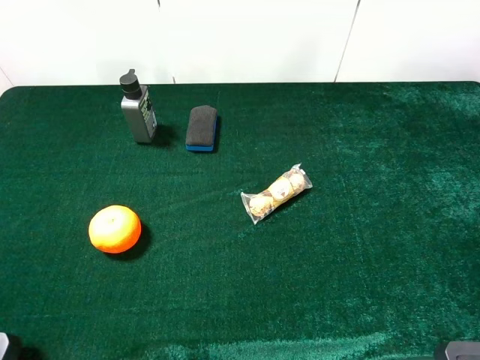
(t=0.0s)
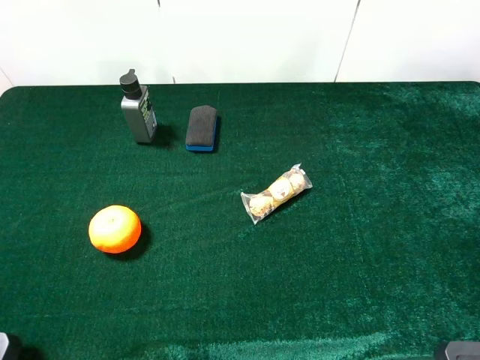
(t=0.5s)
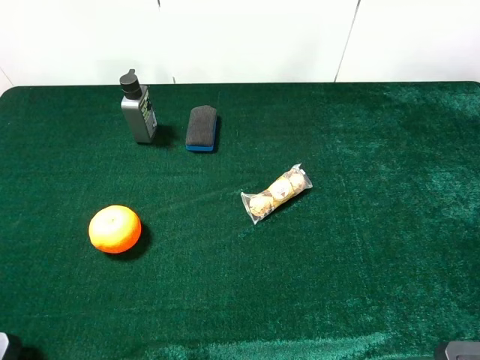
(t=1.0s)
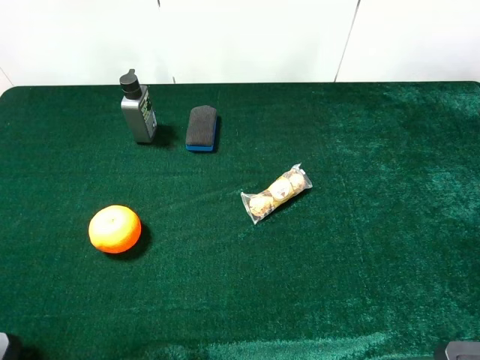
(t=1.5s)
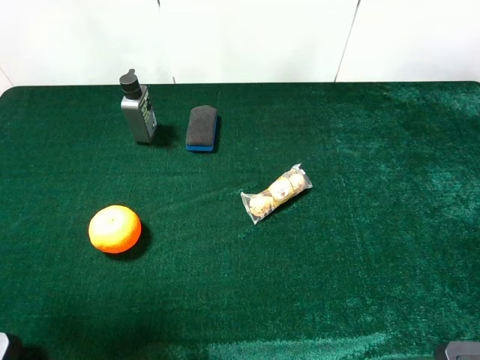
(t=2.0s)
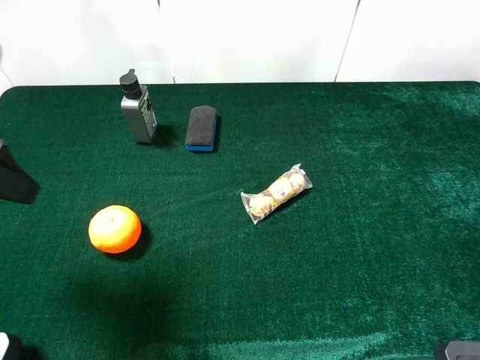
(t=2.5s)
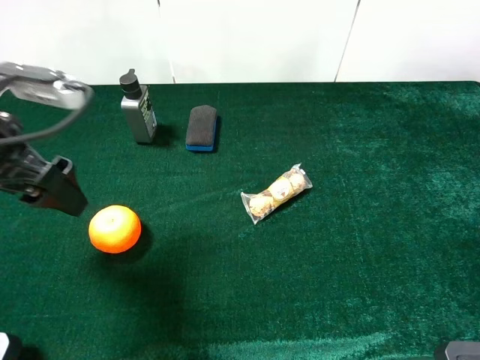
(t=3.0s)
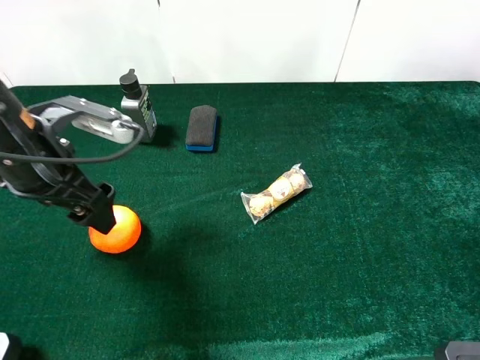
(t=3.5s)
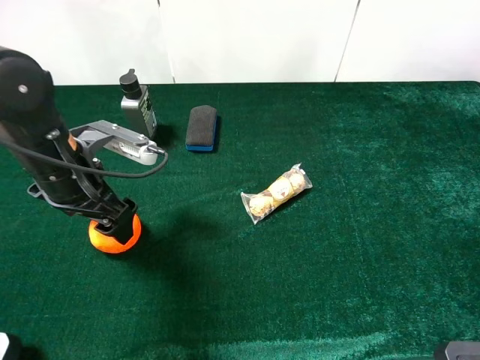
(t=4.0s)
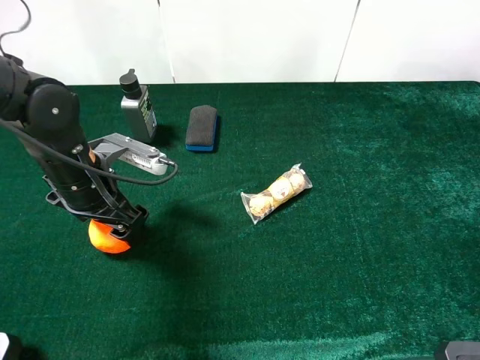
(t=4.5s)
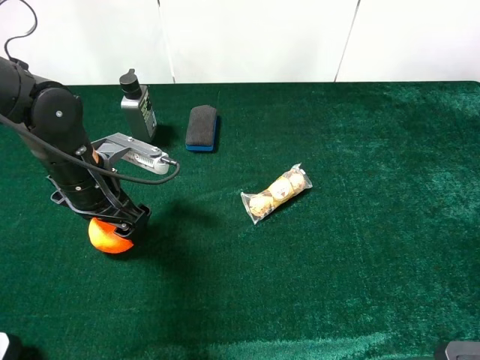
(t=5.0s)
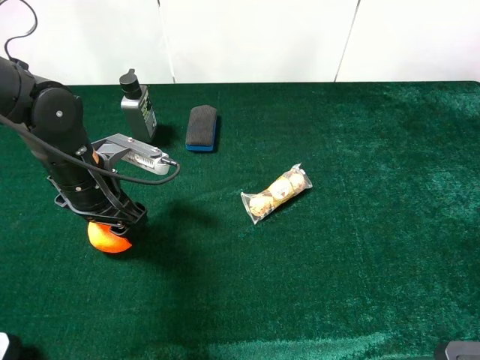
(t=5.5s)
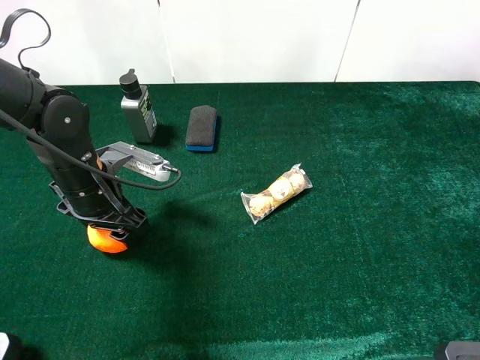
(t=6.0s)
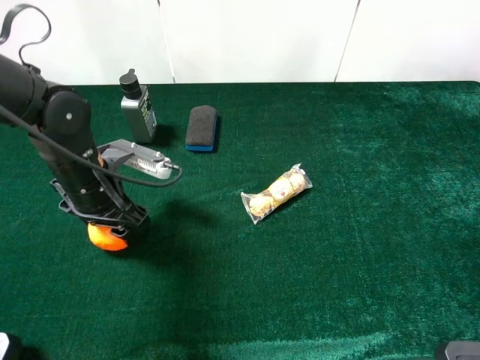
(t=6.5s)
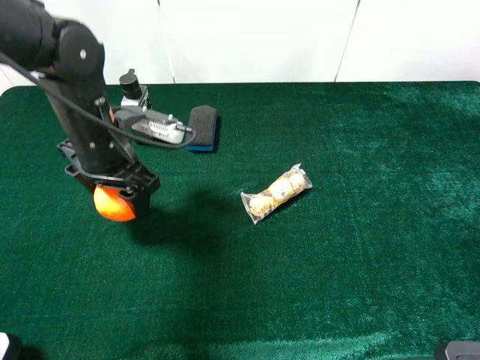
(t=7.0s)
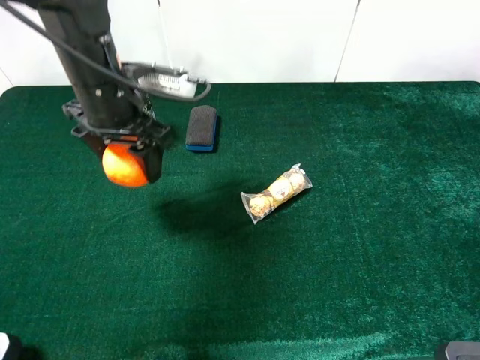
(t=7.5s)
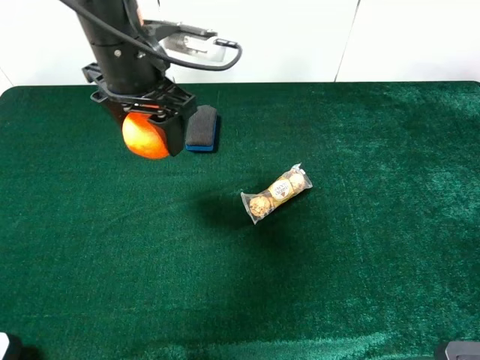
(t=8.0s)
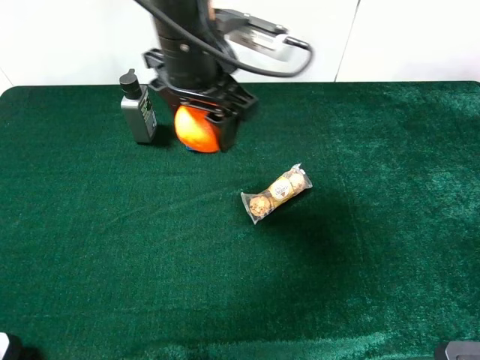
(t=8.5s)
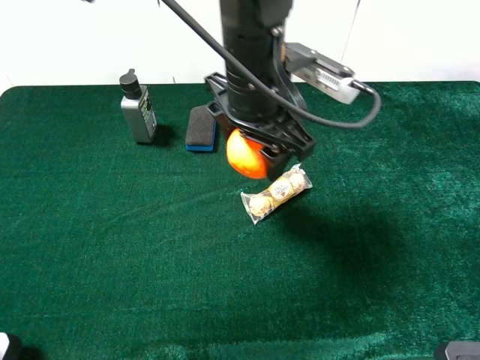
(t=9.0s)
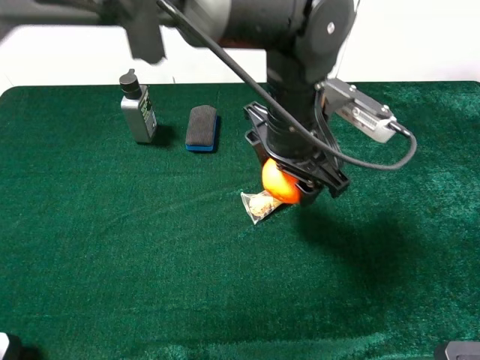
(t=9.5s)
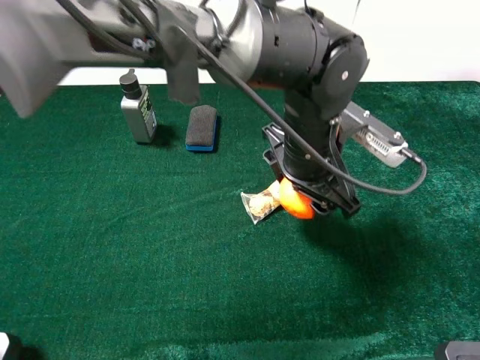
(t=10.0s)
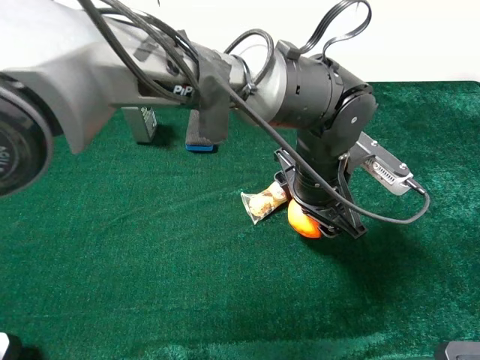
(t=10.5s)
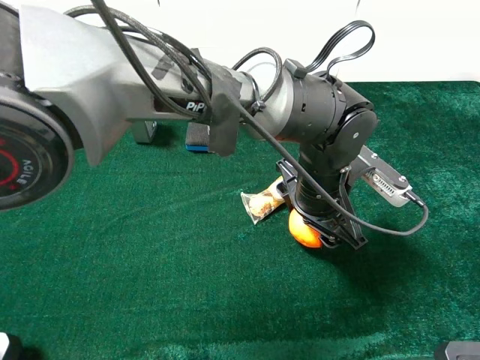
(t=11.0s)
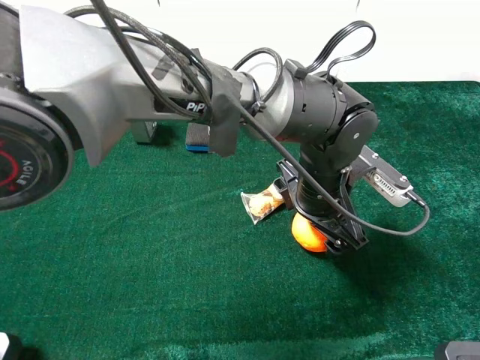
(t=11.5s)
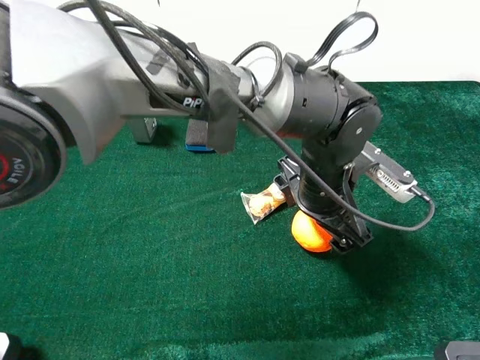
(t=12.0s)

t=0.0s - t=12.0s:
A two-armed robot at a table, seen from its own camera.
Task of the whole recording: the gripper move the object.
Step, t=0.0s - t=6.0s: Grasp the orange with the left gripper.
t=0.0s - t=2.0s: The left gripper travels forward by roughly 10 cm.
t=2.0s - t=4.0s: The left gripper shifts roughly 20 cm downward, forward and to the right.
t=4.0s - t=6.0s: The left gripper closes.
t=6.0s - t=8.0s: The left gripper heads upward, to the right and forward, covering about 20 cm.
t=8.0s - t=10.0s: The left gripper goes approximately 20 cm to the right and downward.
t=10.0s - t=12.0s: The left gripper opens.

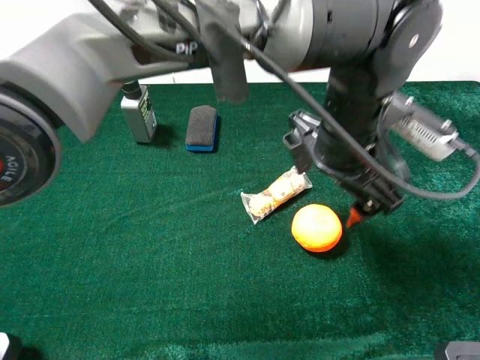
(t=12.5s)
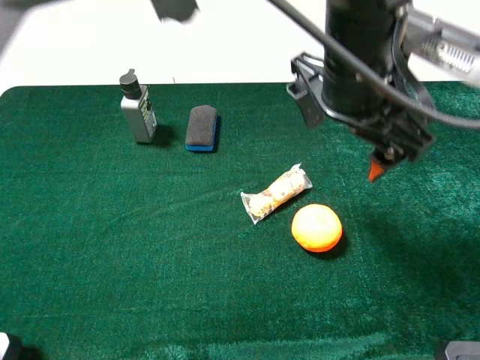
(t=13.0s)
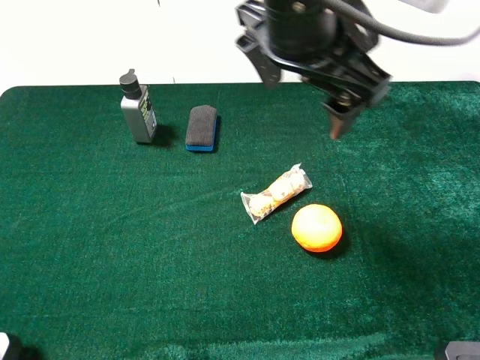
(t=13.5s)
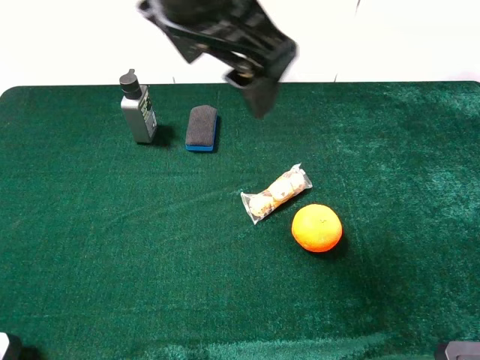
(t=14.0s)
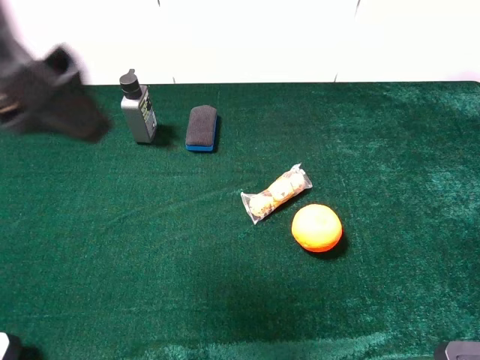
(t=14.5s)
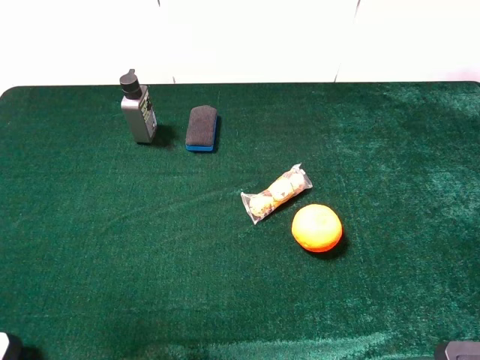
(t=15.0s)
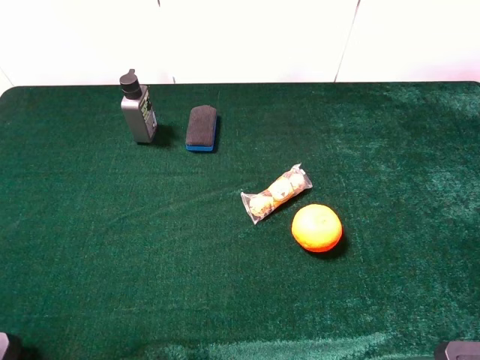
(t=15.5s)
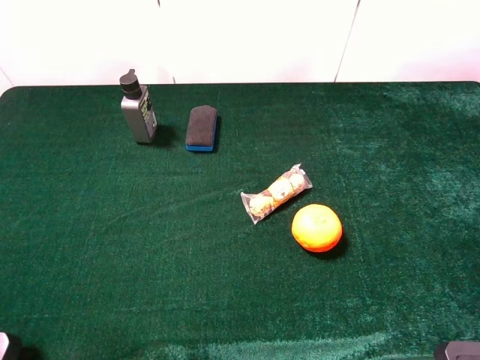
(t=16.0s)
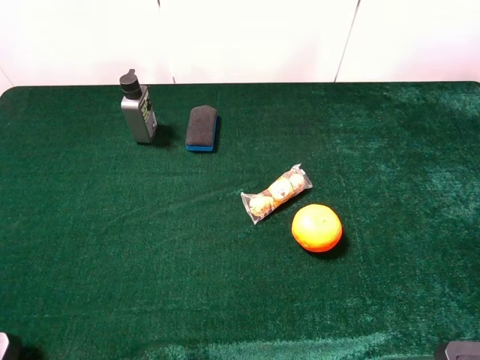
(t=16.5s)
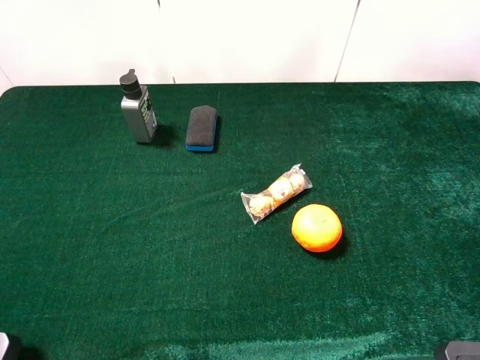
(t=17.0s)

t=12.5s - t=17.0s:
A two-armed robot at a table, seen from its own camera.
Task of the whole recording: the gripper move the object.
t=12.5s - t=14.5s: The left gripper is displaced to the left and upward by approximately 35 cm.
t=14.5s - t=17.0s: The left gripper is displaced to the left, backward and downward by roughly 25 cm.
